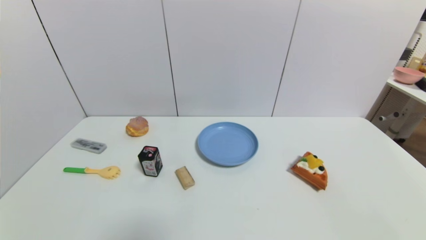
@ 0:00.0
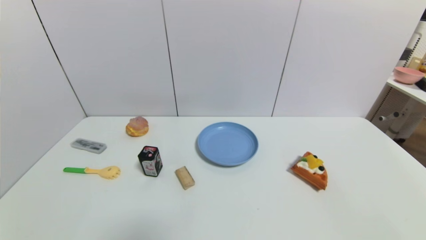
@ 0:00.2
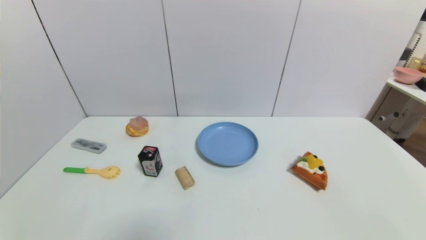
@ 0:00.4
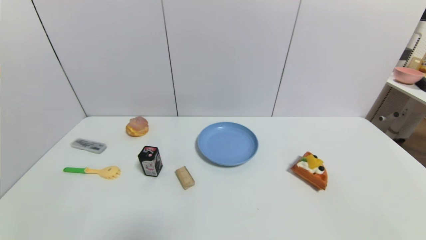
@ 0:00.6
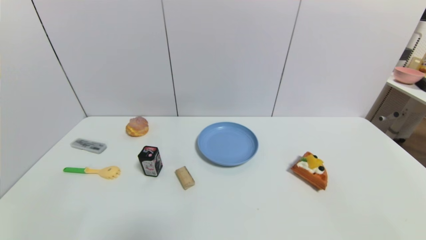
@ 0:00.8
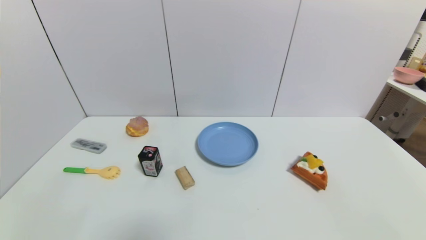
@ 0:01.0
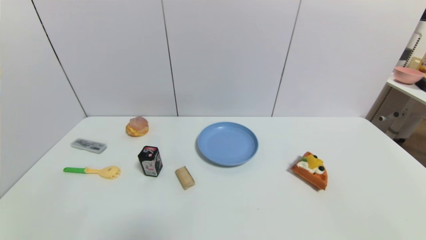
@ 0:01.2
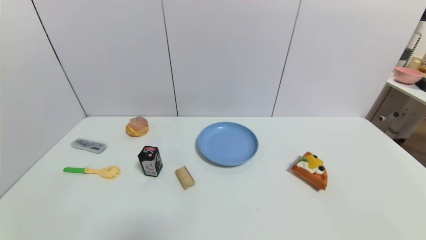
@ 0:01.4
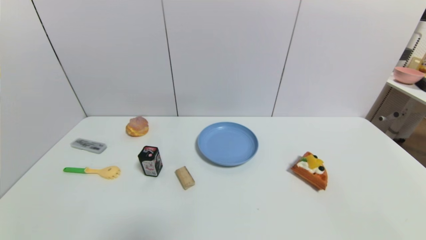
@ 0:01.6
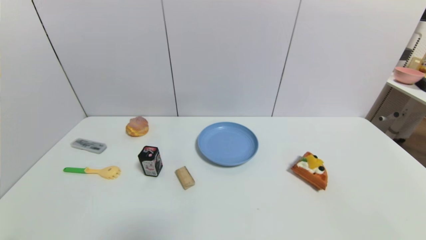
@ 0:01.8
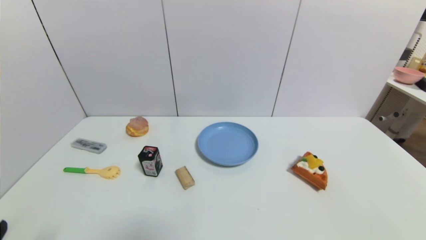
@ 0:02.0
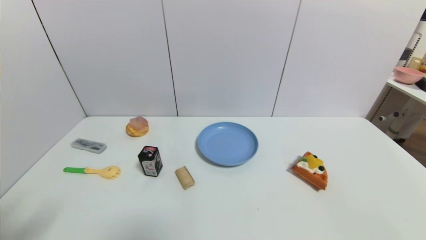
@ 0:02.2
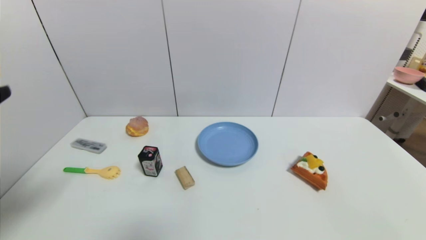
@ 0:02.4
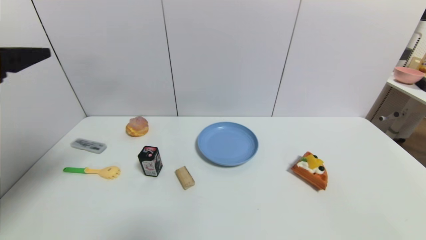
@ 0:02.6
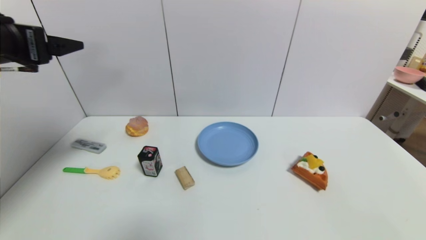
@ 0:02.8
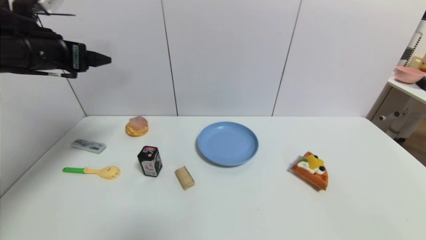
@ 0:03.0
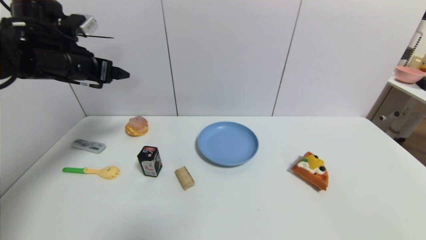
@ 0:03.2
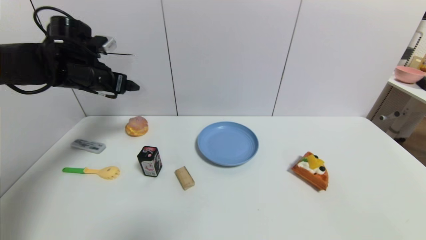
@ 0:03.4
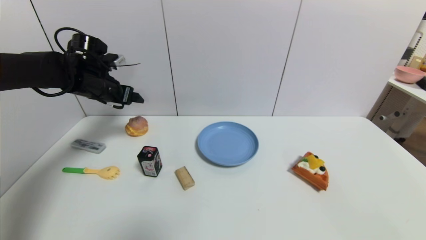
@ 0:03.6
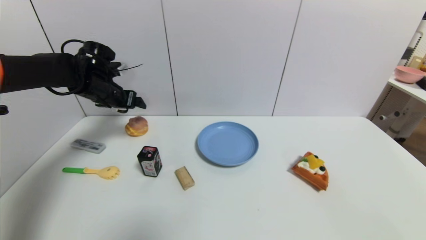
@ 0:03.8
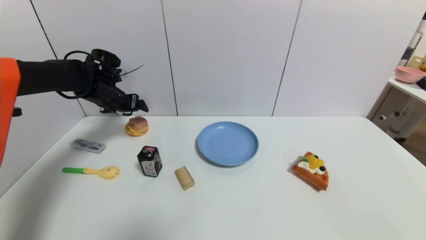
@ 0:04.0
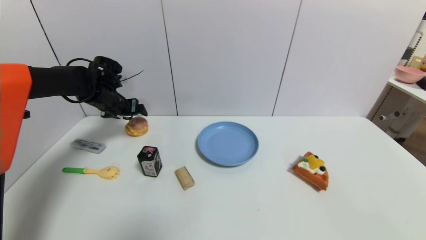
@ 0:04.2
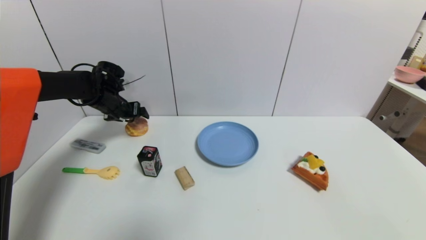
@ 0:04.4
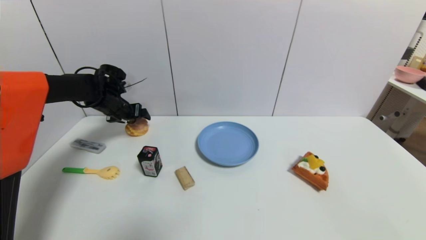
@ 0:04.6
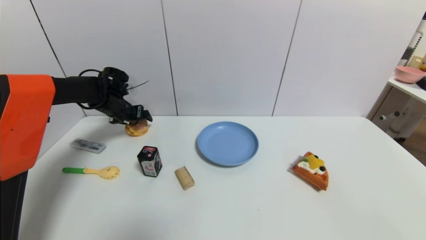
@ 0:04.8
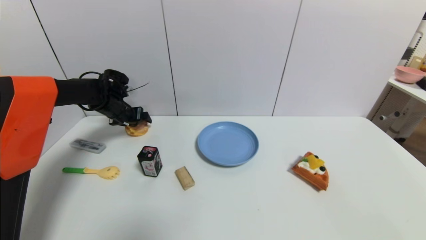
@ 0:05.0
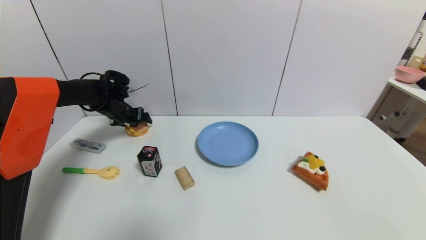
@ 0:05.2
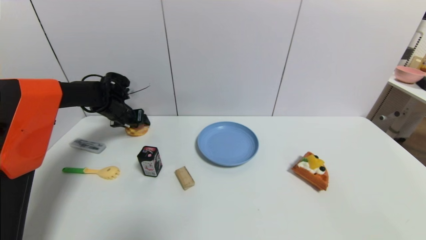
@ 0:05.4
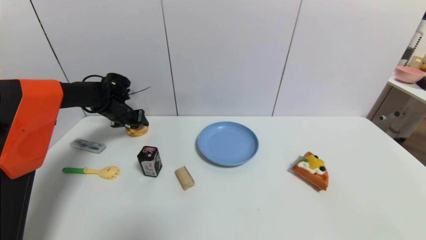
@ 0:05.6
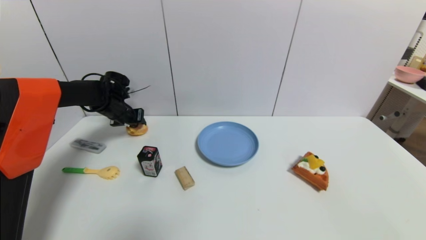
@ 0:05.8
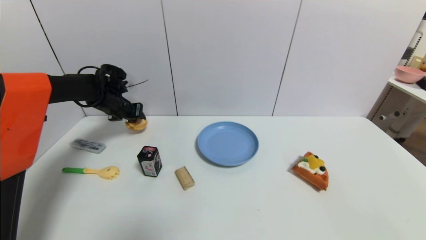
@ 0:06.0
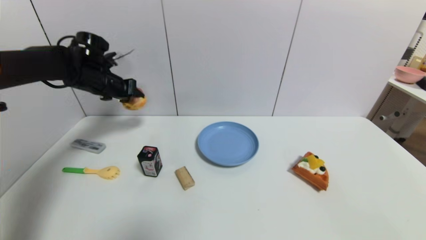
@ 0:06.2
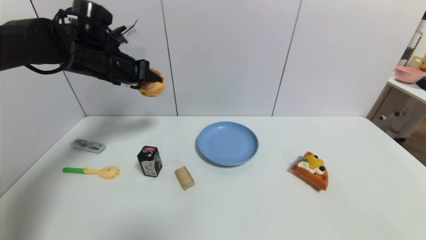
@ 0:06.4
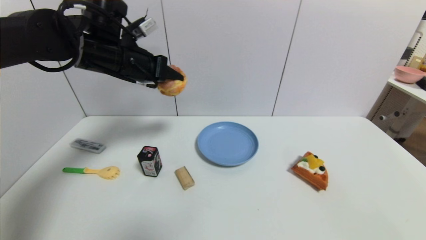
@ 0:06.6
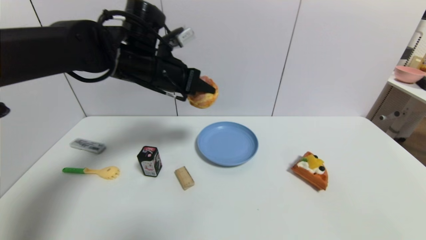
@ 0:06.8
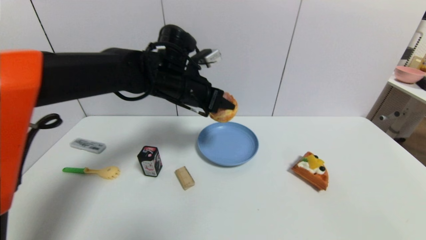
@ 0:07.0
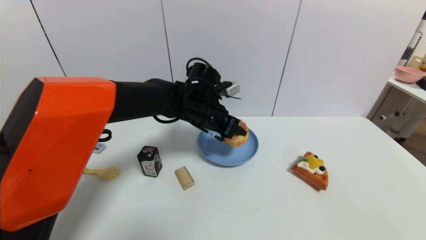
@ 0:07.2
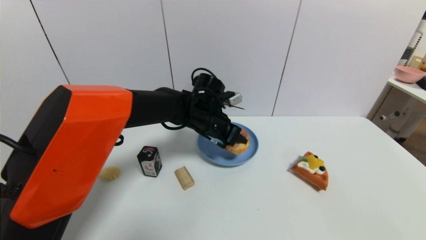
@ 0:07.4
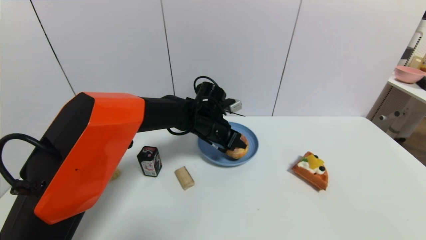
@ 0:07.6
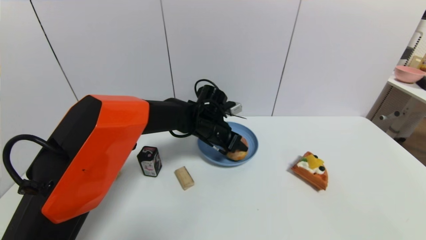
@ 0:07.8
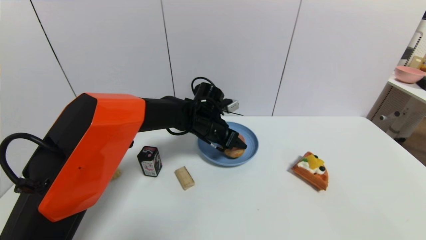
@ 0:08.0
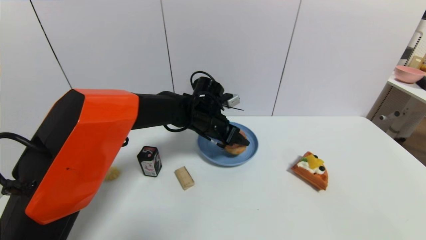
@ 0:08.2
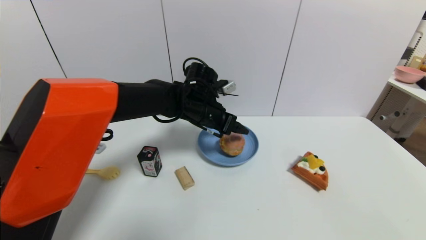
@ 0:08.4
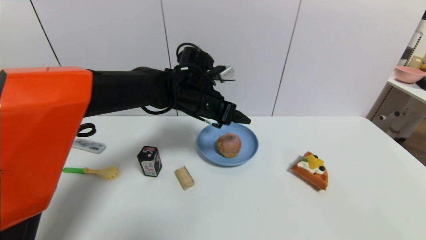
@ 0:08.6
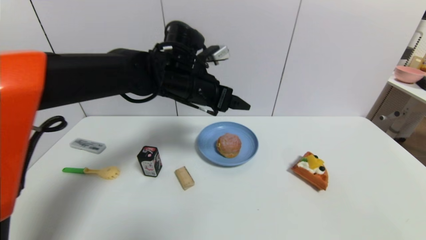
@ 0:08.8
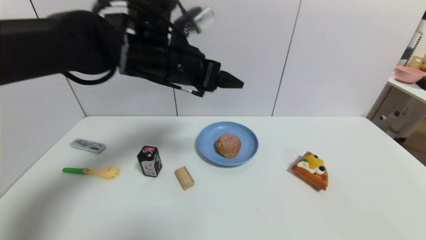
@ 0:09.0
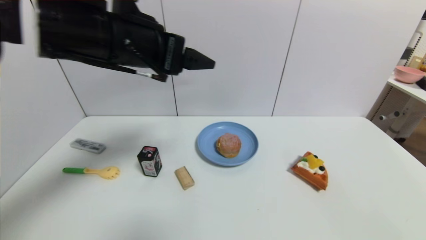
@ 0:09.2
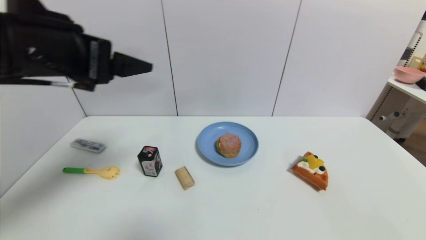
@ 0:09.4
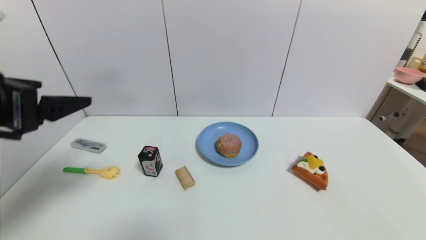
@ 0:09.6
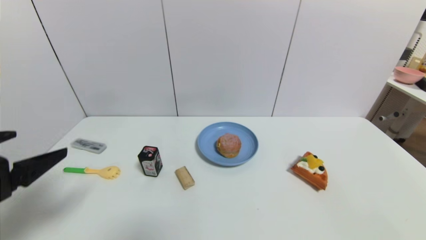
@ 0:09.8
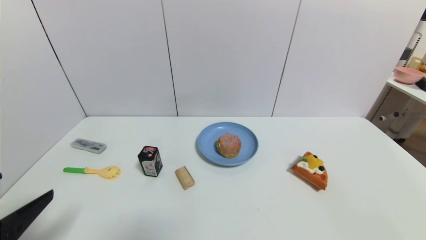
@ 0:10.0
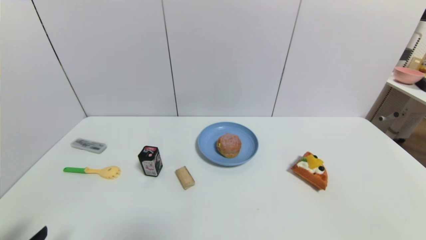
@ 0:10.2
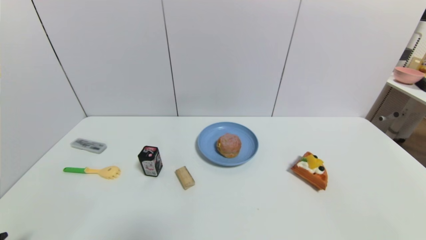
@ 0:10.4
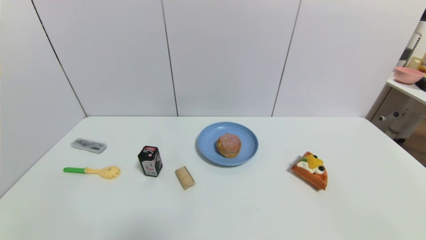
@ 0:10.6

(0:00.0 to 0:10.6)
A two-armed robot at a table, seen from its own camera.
Task of the whole recording: use a gripper to pick the target object and place on the blue plate.
Step, 0:00.0 - 0:05.6: Grasp the round bread with the left gripper.
Step, 0:05.8 - 0:08.2: Place the round bread on the blue plate with the left gripper.
0:00.0 - 0:01.6: Both grippers stay about where they are.
0:01.6 - 0:03.0: The left gripper travels forward and upward by roughly 40 cm.
0:03.0 - 0:04.6: The left gripper heads forward and downward, covering roughly 25 cm.
0:04.6 - 0:06.0: The left gripper closes up.
0:06.0 - 0:07.6: The left gripper goes roughly 25 cm to the right.
0:07.6 - 0:09.0: The left gripper heads upward, backward and to the left, covering some 25 cm, and opens its fingers.
0:09.0 - 0:10.6: The left gripper heads backward, downward and to the left, covering approximately 40 cm.

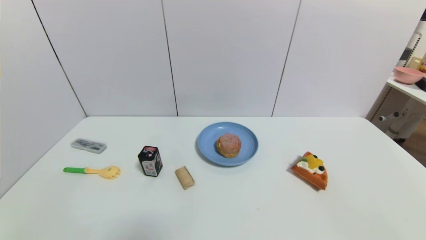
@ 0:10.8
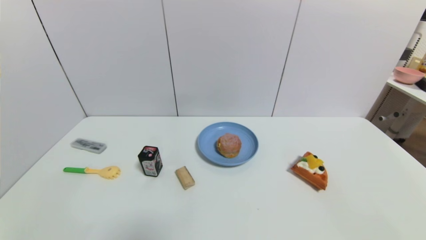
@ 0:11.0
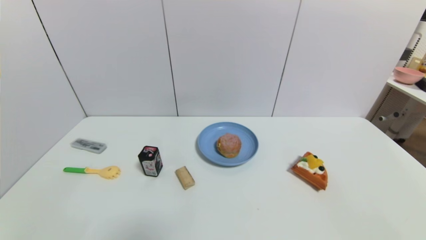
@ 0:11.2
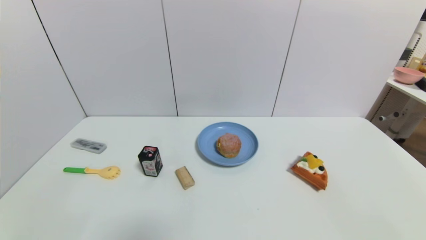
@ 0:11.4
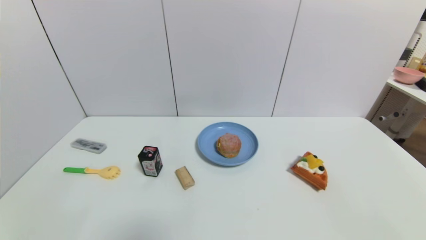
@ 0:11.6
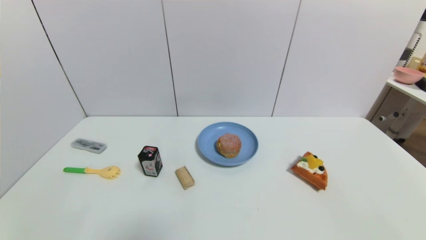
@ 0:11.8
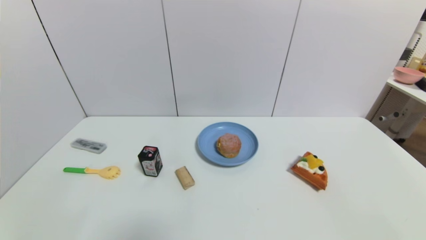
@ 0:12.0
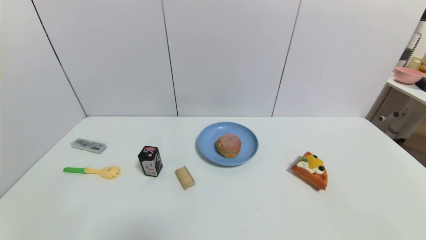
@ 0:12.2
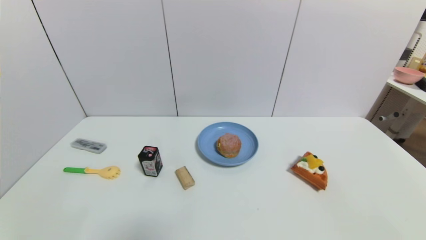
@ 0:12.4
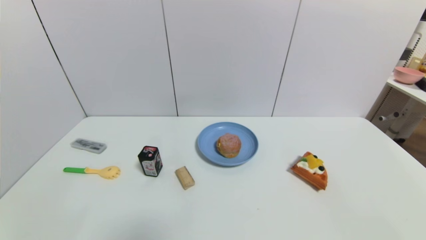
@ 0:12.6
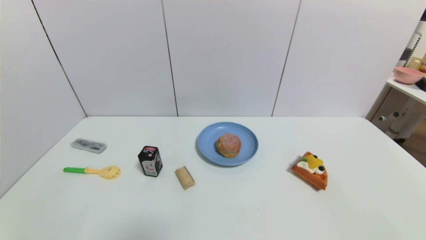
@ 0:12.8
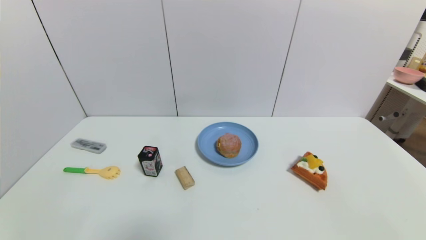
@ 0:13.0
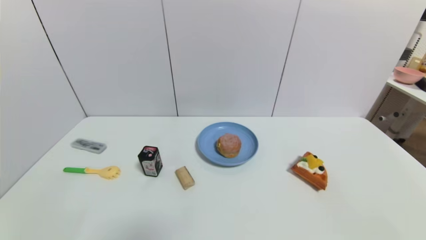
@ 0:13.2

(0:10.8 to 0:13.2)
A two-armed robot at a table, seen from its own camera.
Task of the whole recording: use a gripper to pick the target object and place on the blue plate.
0:12.0 - 0:13.2: Neither gripper changes place.
